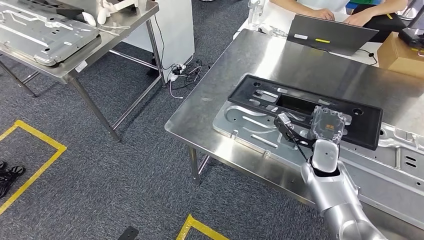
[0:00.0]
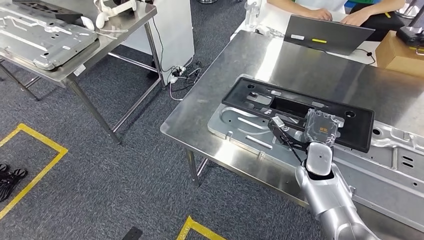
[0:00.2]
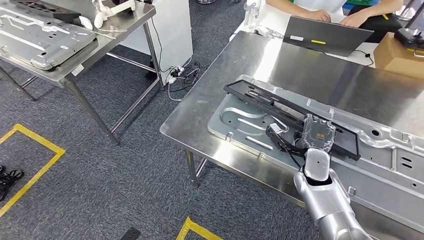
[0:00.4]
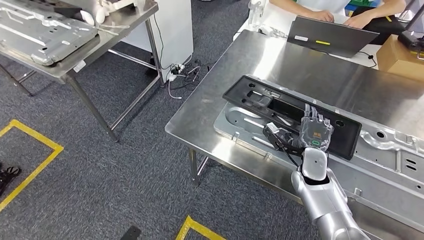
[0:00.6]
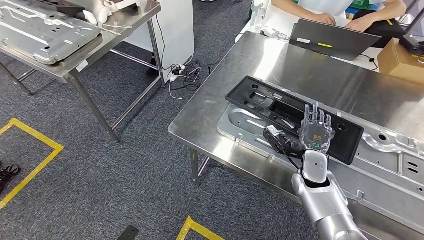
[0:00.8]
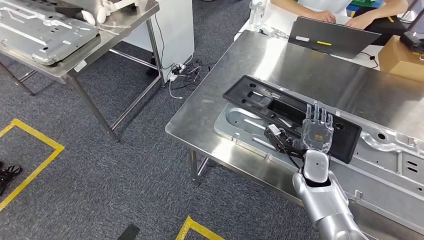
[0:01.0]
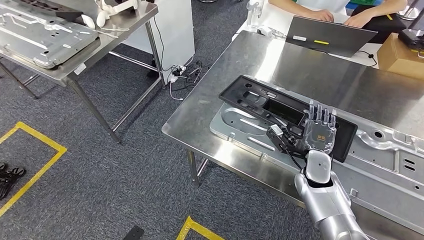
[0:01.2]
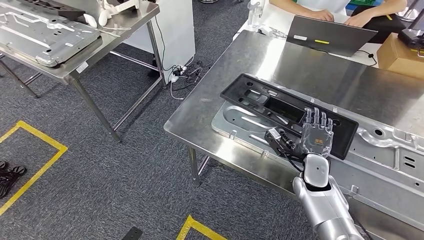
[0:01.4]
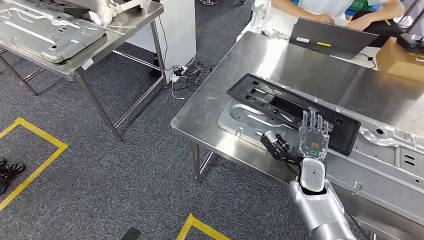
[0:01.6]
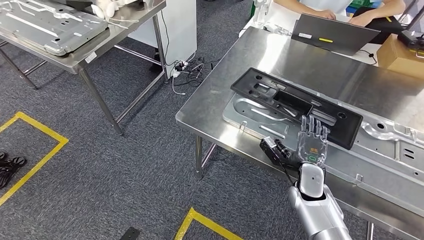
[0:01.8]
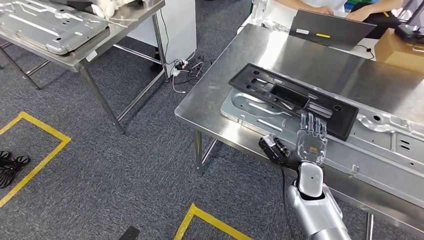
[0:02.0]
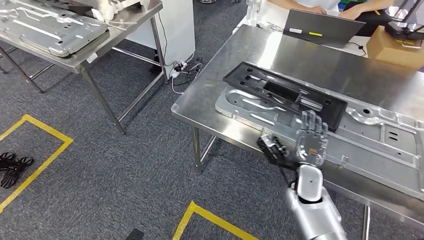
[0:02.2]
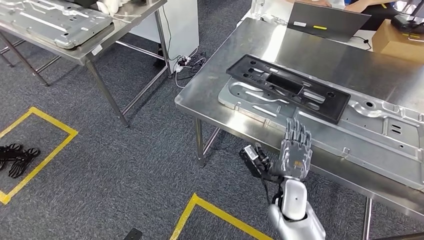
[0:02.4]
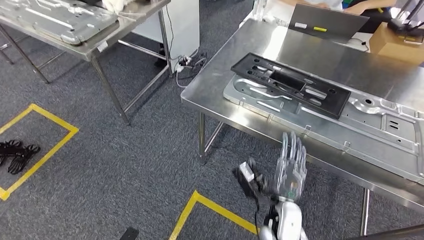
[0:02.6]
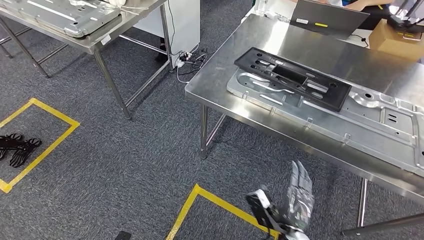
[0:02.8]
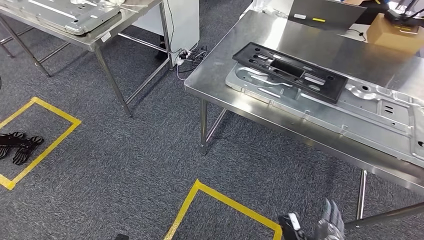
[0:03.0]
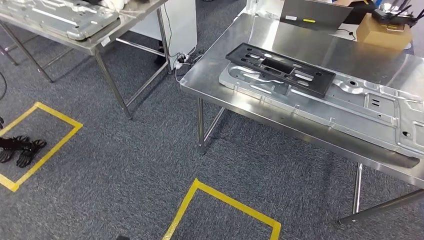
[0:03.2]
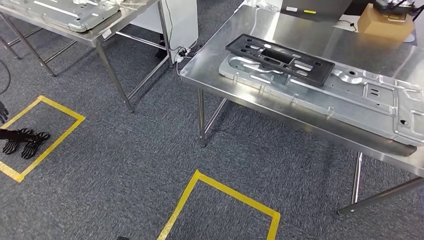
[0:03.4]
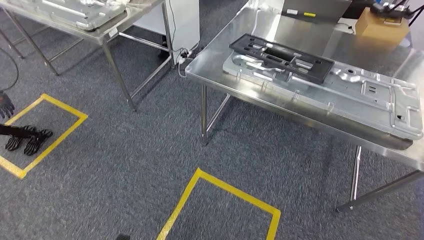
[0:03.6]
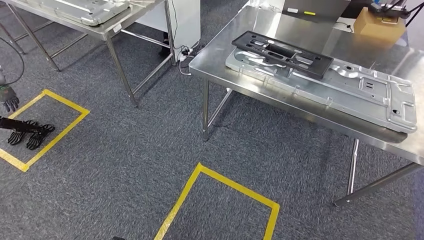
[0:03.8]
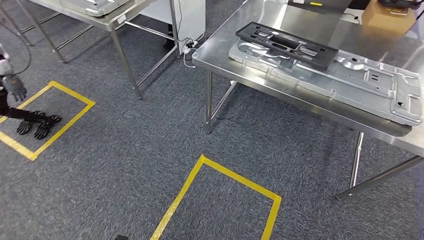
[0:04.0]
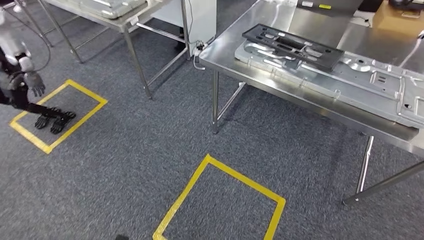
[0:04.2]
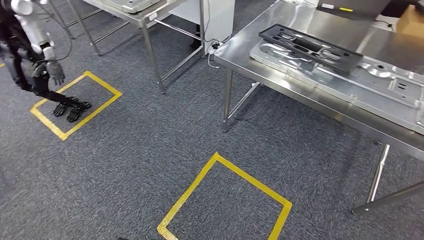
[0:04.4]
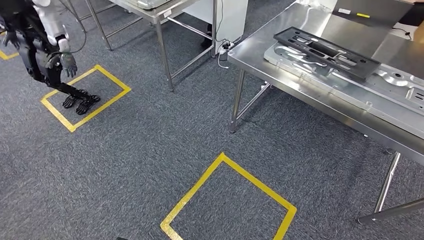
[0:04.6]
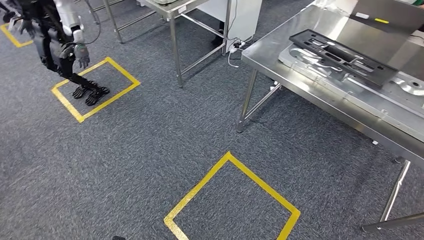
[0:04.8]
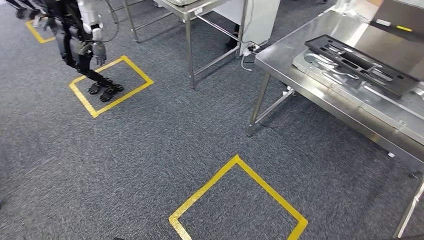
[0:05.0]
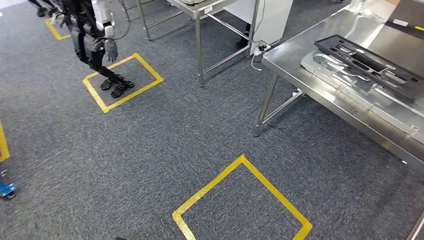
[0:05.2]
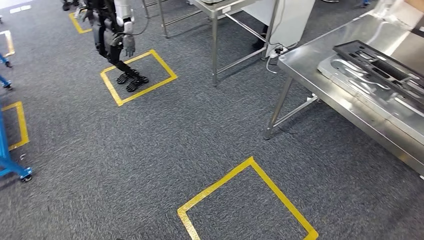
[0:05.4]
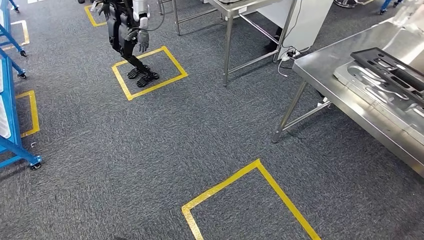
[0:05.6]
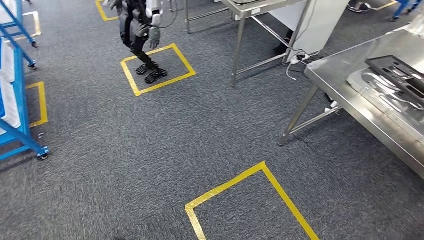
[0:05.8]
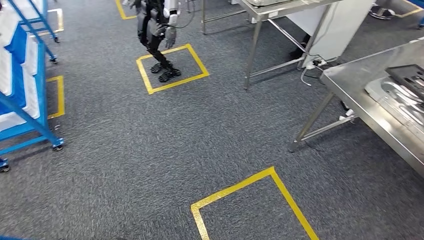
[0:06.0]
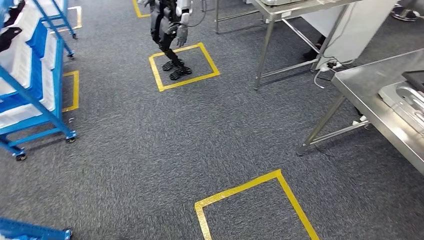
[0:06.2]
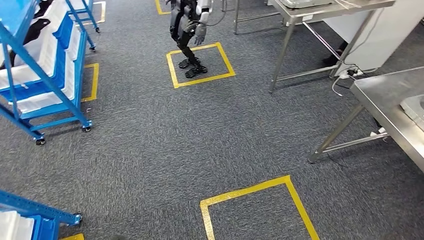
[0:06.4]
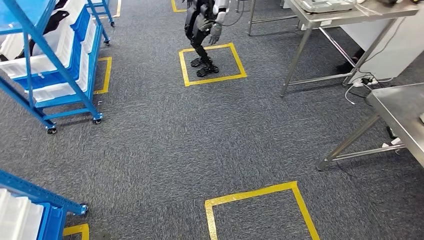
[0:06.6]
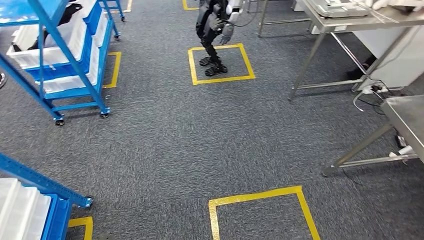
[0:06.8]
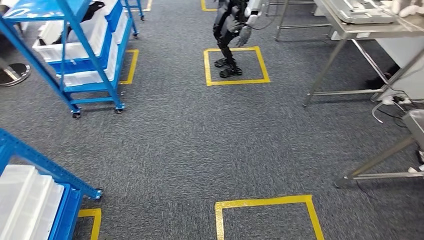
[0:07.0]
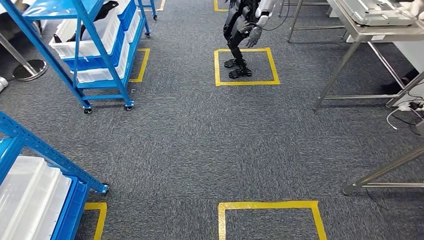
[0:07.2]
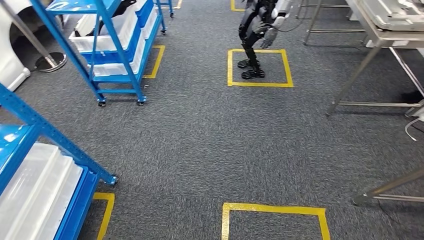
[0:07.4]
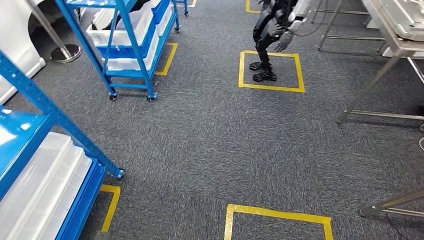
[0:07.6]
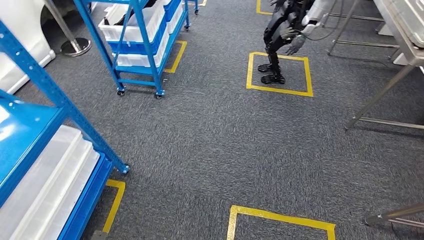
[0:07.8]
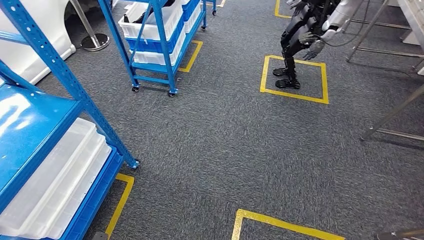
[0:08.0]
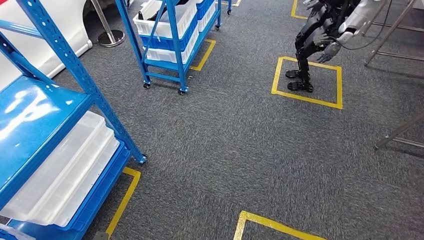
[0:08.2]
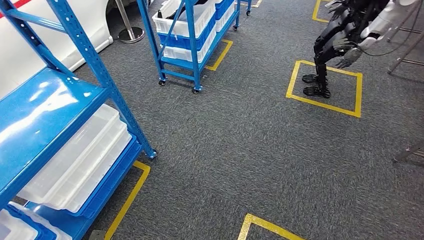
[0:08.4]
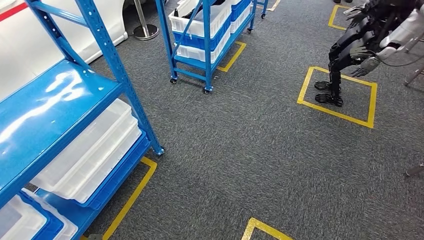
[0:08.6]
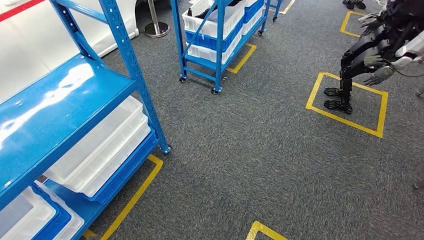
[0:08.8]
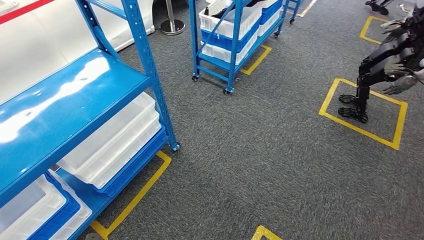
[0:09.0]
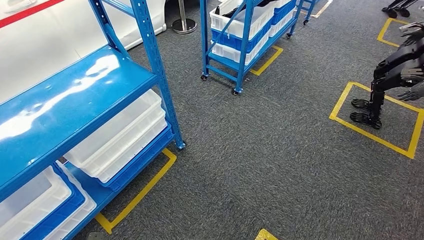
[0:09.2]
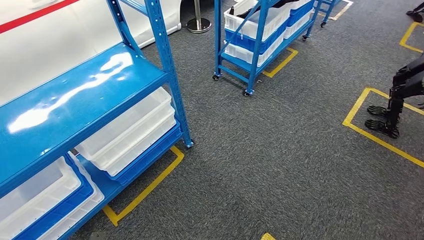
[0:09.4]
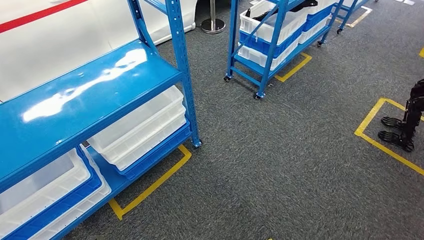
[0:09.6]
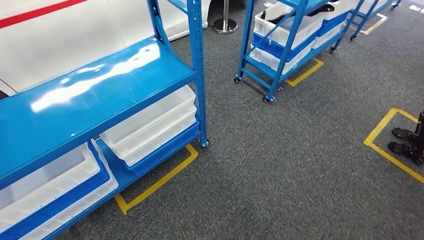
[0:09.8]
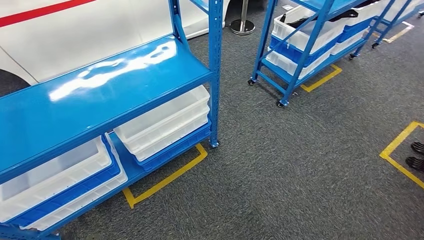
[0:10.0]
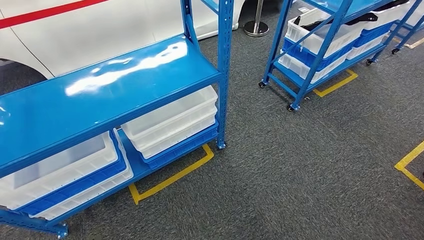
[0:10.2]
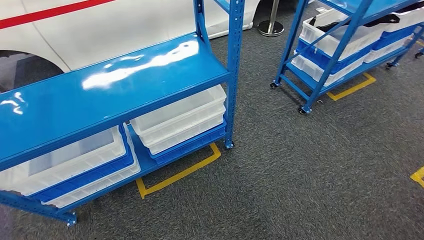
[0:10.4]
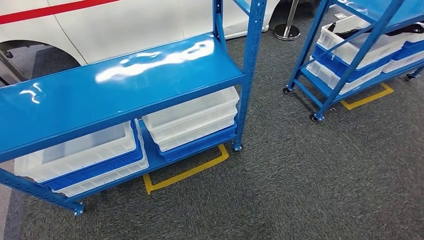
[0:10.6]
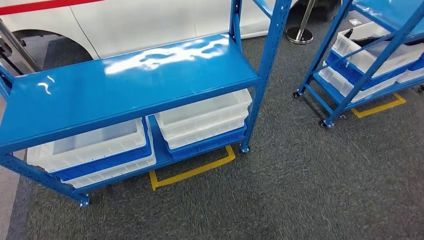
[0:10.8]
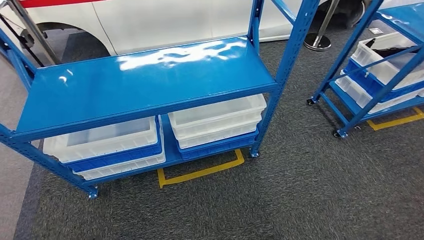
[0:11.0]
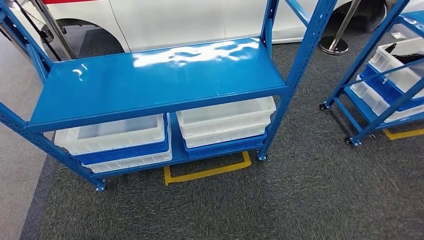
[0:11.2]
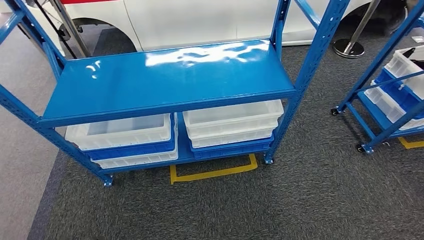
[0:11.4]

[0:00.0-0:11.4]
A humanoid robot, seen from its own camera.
Step, 0:01.0 to 0:03.4: Insert the large material into the corresponding hole on the workbench.
0:00.0 to 0:01.4: The right hand changes place by roughly 5 cm.

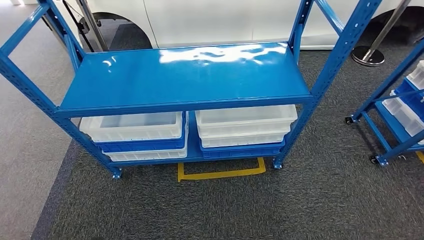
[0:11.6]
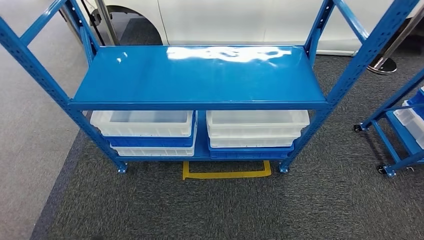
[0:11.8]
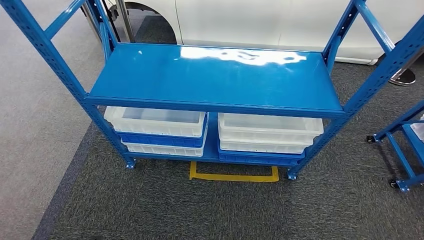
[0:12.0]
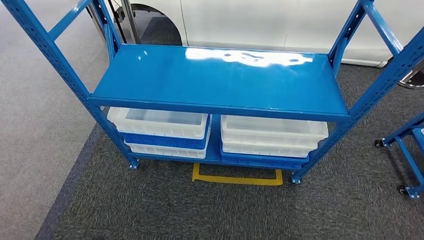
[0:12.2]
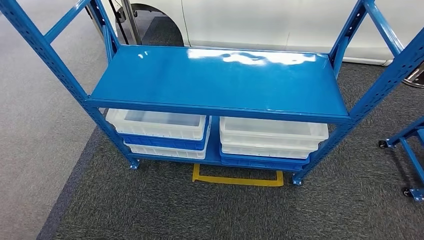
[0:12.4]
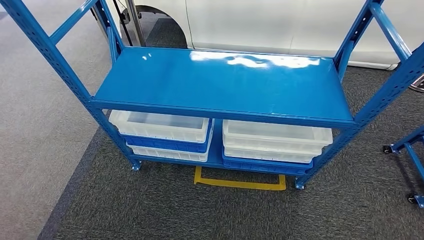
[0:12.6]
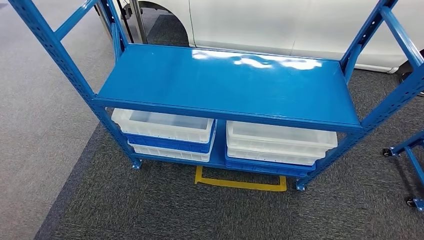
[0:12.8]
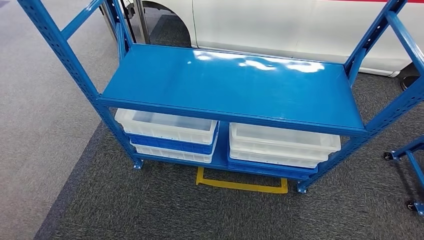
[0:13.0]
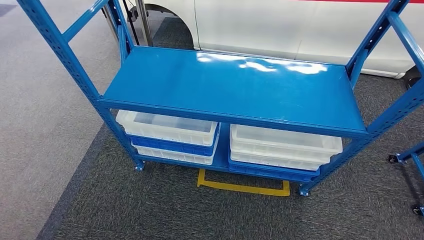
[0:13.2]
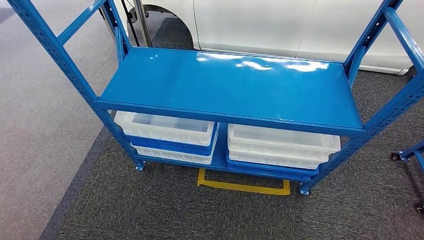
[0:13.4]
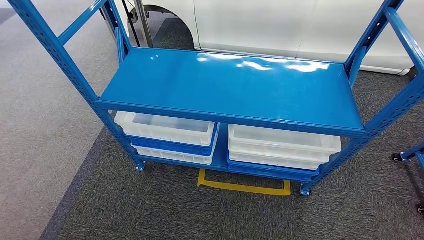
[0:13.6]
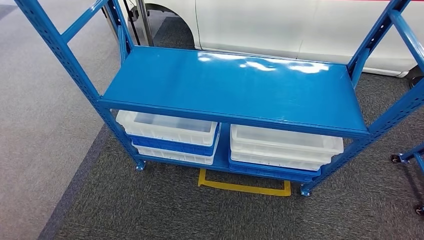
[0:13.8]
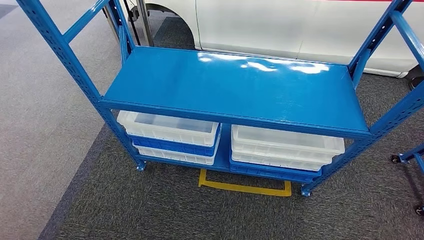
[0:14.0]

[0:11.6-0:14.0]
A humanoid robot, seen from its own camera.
Step, 0:11.6 to 0:14.0: Move to the initial position of the shelf.
